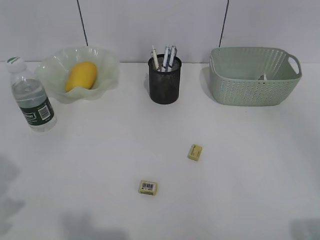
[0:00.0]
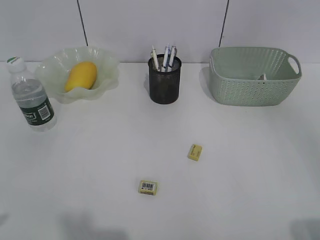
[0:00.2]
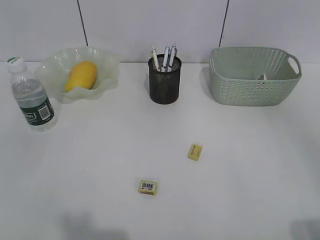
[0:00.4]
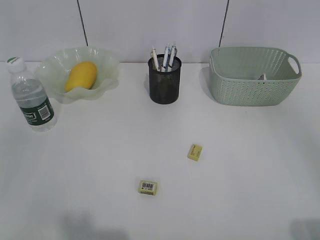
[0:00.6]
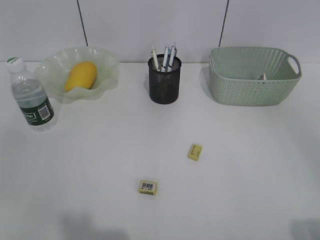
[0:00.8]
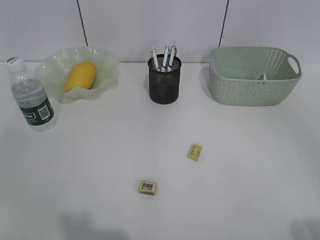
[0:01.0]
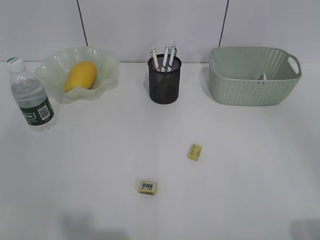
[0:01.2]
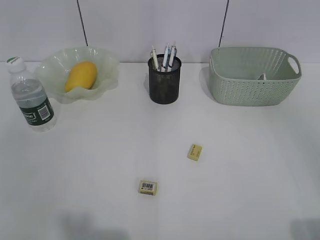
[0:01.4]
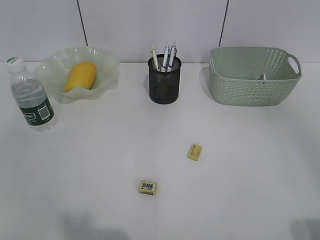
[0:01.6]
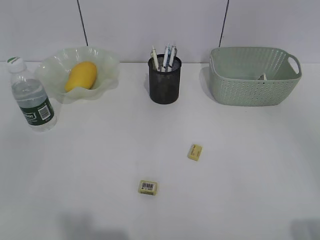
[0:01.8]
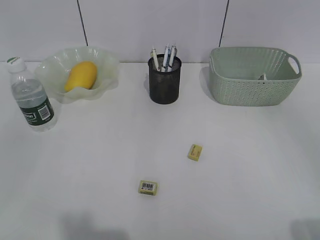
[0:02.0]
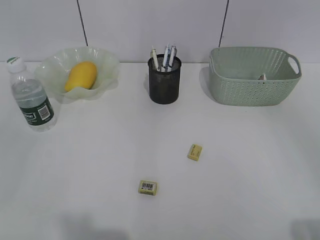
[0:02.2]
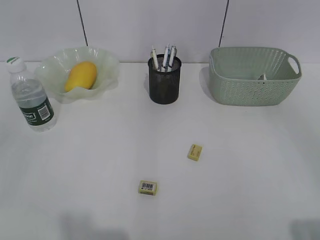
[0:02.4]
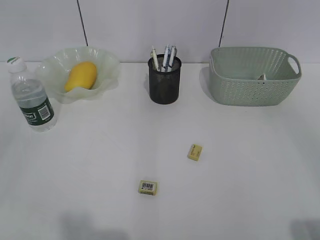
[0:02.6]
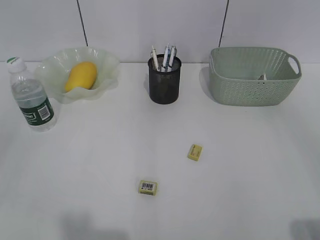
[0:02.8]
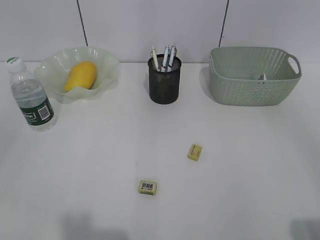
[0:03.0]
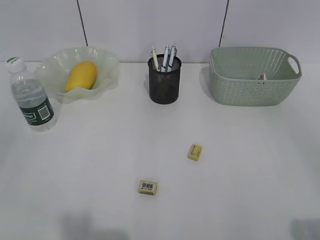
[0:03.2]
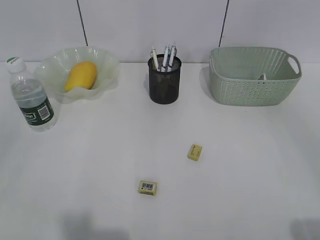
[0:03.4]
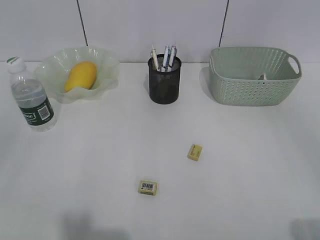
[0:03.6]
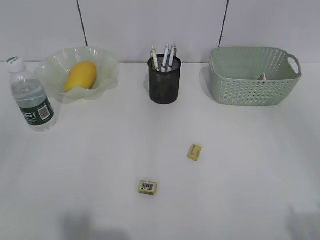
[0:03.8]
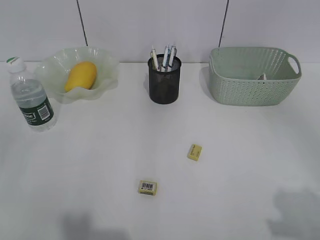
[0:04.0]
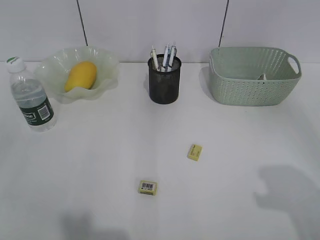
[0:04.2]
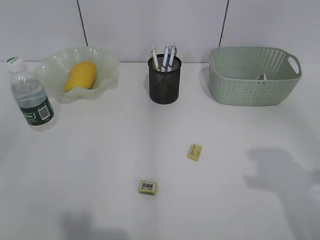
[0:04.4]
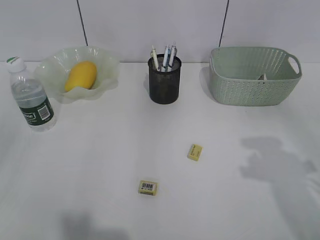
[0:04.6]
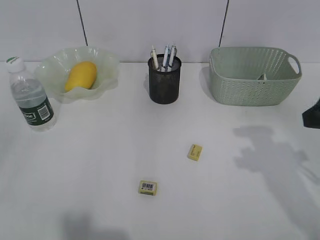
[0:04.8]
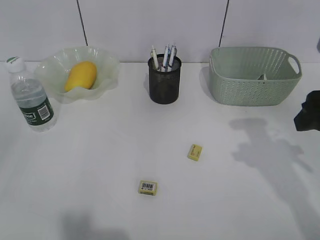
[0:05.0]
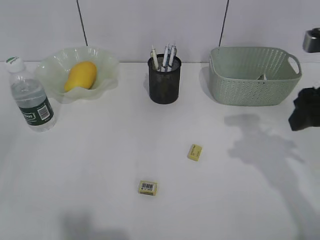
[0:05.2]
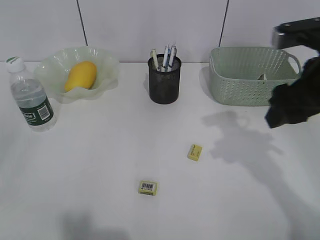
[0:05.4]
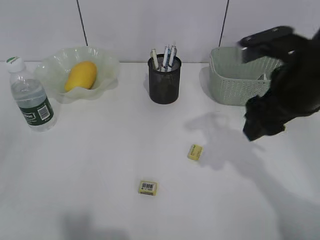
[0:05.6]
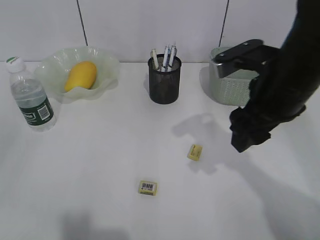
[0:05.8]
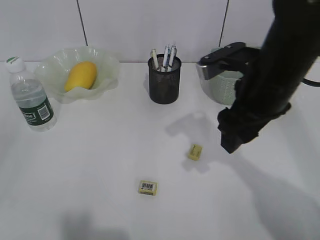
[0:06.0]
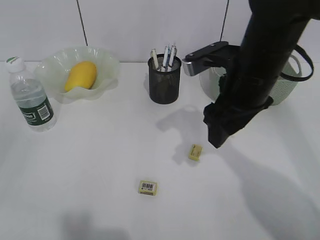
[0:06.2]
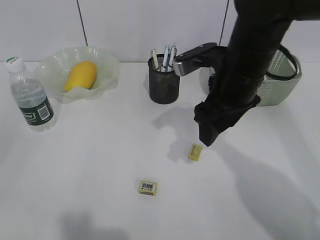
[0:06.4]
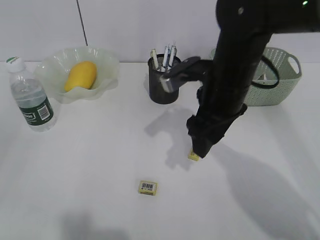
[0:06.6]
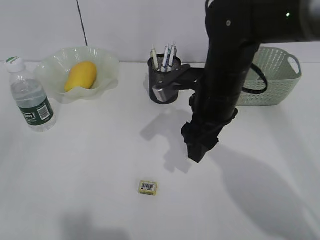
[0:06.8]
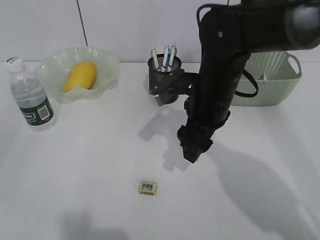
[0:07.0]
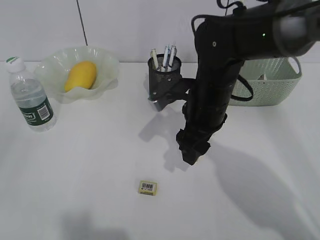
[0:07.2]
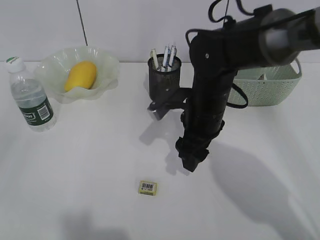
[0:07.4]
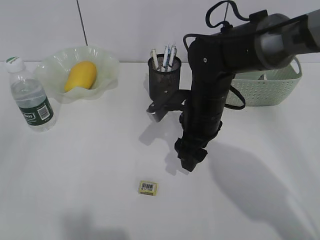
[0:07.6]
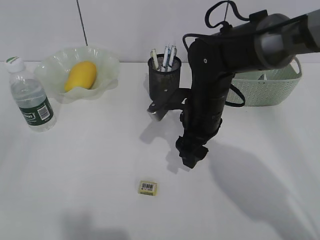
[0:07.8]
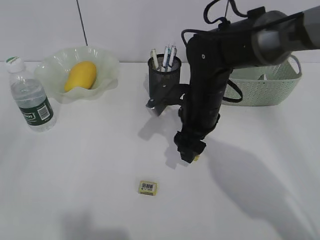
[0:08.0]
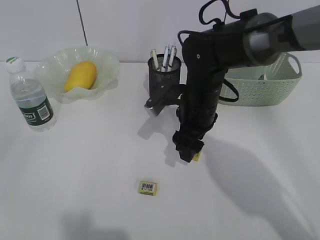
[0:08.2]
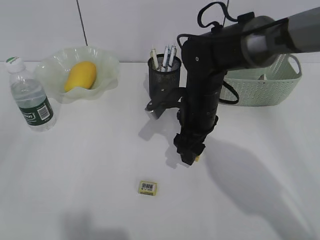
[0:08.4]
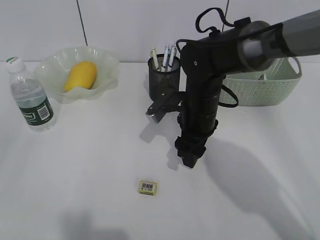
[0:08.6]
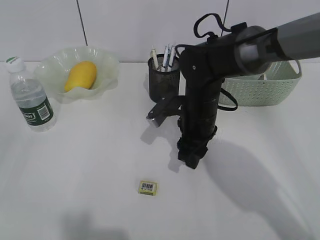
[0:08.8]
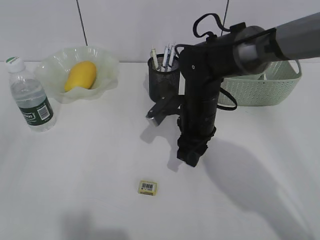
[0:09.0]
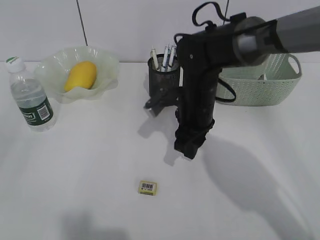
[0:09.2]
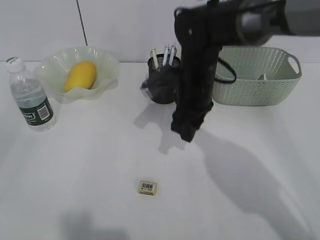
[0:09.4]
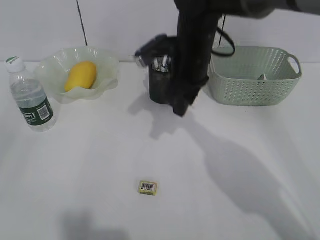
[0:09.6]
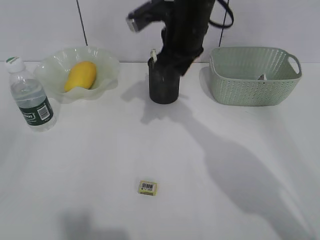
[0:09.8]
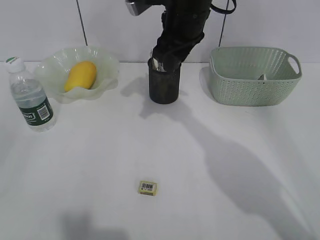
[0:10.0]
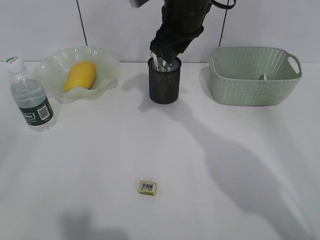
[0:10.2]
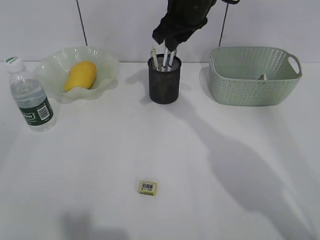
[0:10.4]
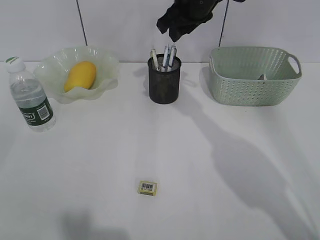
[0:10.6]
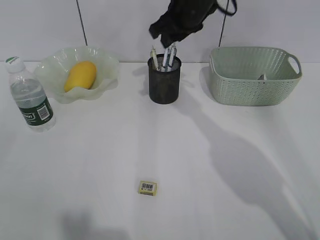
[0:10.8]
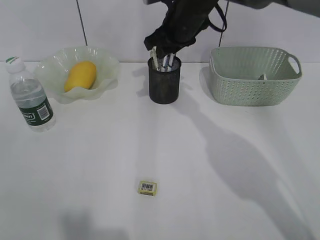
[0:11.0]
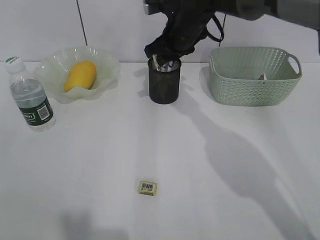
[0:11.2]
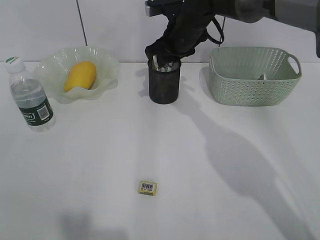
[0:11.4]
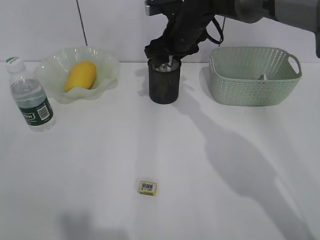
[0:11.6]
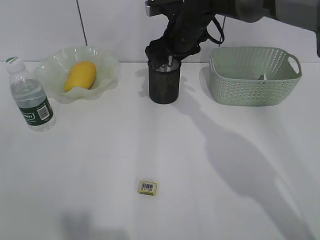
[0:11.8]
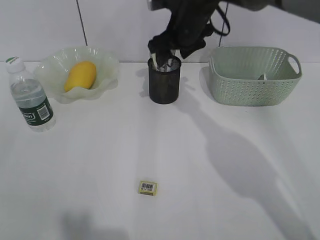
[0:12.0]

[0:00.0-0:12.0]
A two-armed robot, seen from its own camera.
Step, 0:00.0 to 0:08.8: Grasp the eraser with right gripper.
Step, 0:09.0 to 0:11.8: Place the eraser in pen holder with right gripper.
0:04.4 to 0:06.0: The right gripper shifts some 20 cm to the left and forward.
0:06.0 to 0:07.6: The right gripper heads downward and to the left, covering approximately 10 cm.
0:07.6 to 0:09.0: The right gripper closes up.
0:09.0 to 0:10.4: The right gripper goes approximately 20 cm upward and forward.
0:10.4 to 0:12.0: The right gripper moves downward, about 5 cm, and opens up.

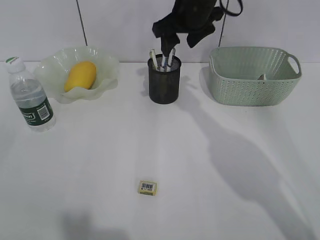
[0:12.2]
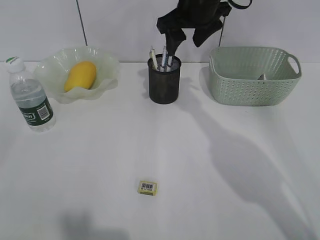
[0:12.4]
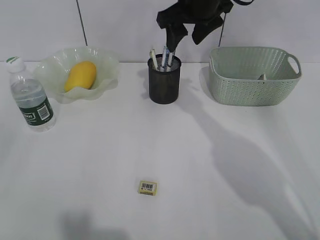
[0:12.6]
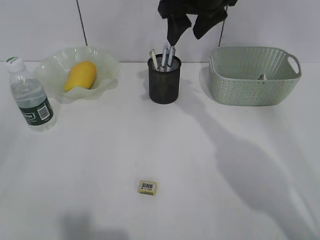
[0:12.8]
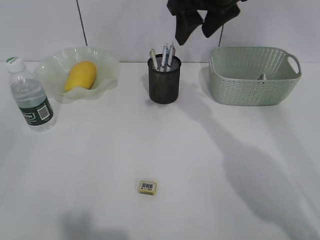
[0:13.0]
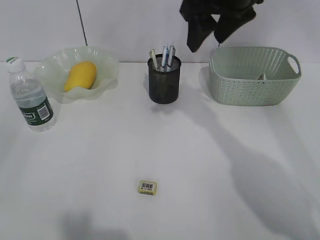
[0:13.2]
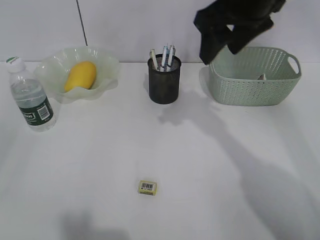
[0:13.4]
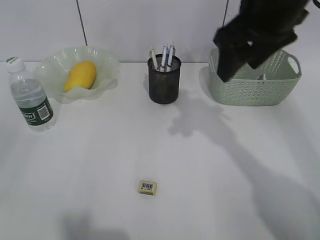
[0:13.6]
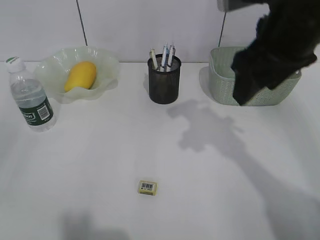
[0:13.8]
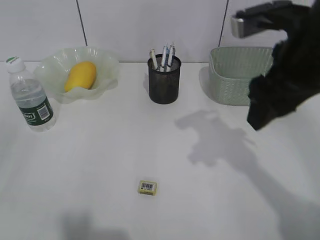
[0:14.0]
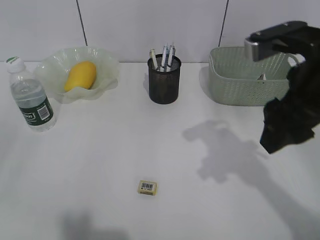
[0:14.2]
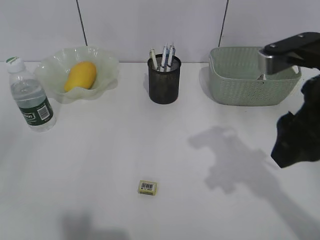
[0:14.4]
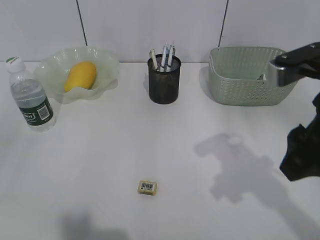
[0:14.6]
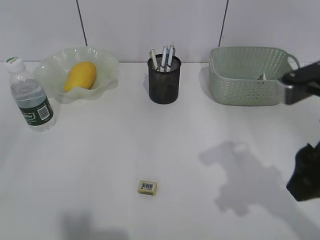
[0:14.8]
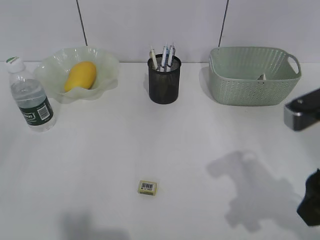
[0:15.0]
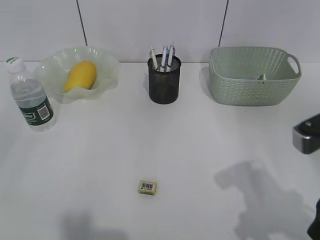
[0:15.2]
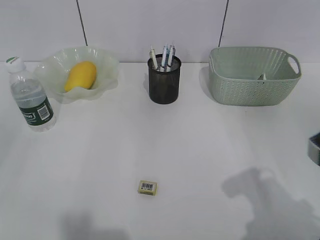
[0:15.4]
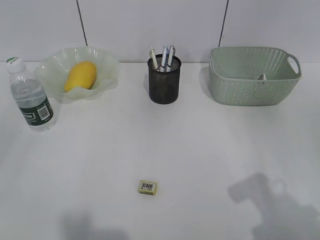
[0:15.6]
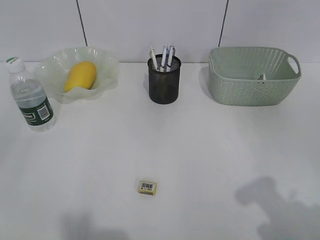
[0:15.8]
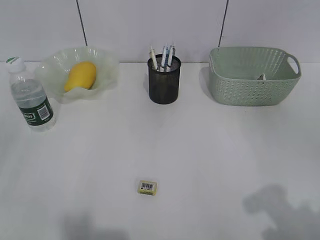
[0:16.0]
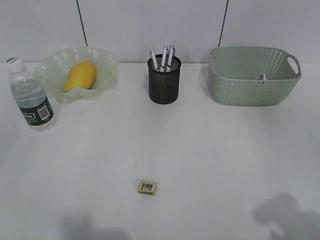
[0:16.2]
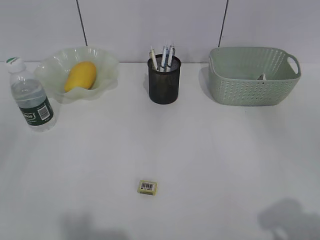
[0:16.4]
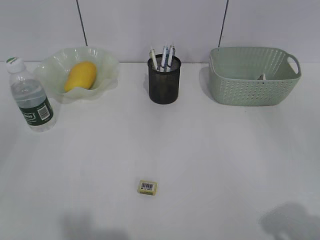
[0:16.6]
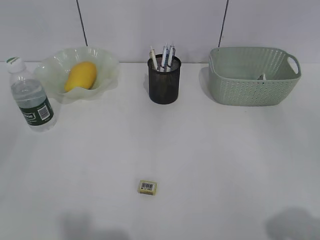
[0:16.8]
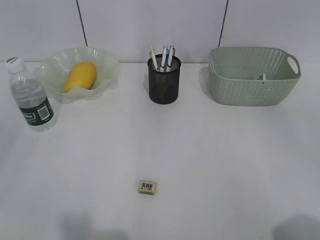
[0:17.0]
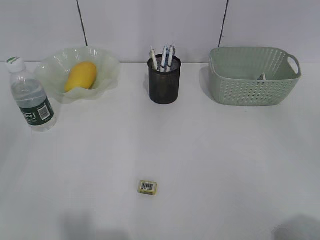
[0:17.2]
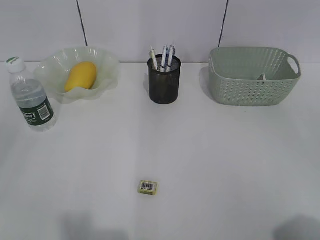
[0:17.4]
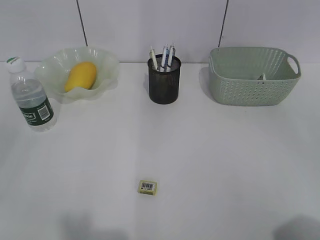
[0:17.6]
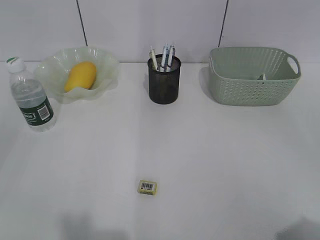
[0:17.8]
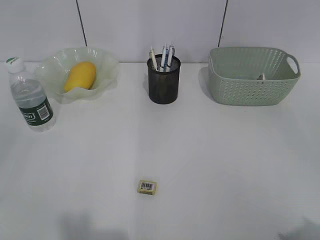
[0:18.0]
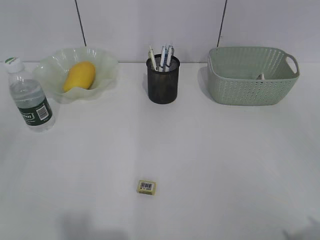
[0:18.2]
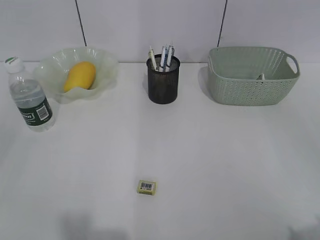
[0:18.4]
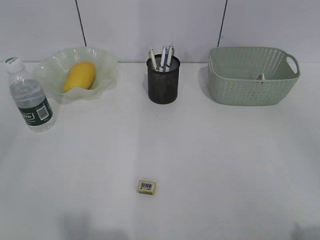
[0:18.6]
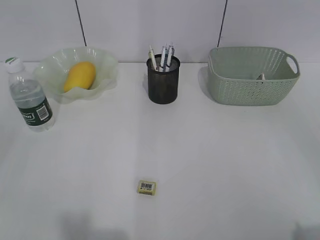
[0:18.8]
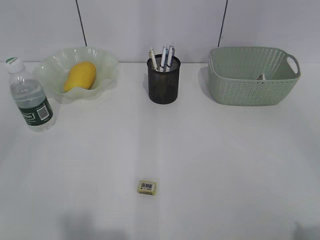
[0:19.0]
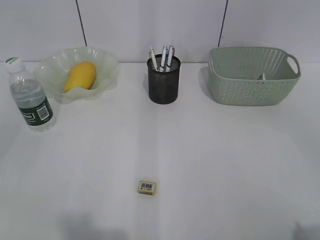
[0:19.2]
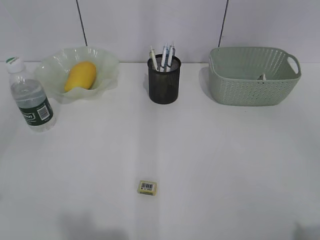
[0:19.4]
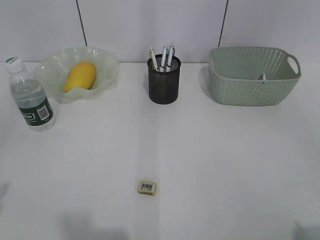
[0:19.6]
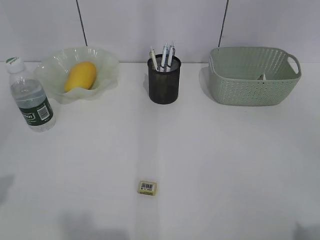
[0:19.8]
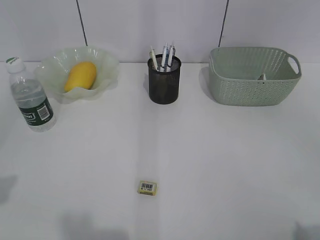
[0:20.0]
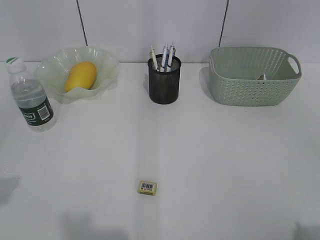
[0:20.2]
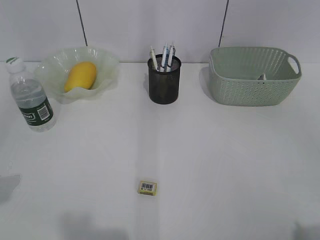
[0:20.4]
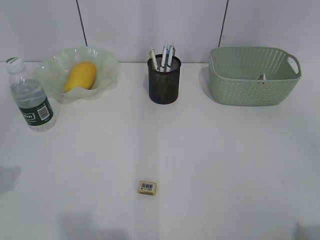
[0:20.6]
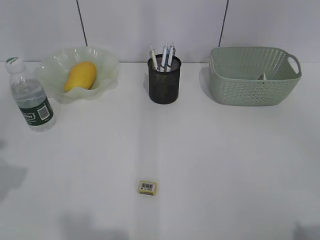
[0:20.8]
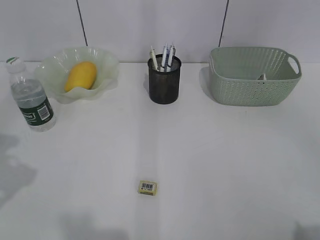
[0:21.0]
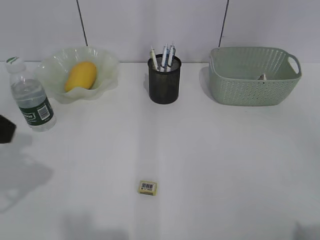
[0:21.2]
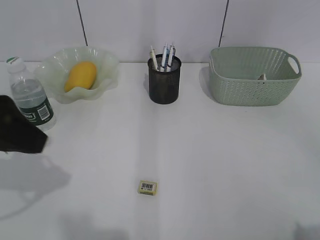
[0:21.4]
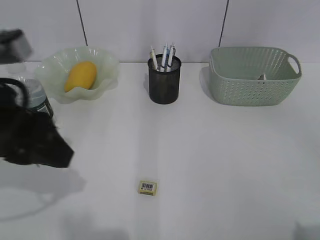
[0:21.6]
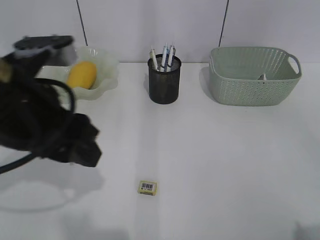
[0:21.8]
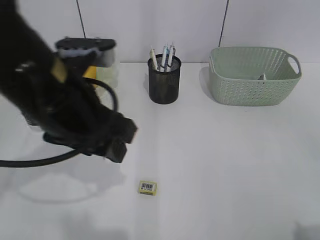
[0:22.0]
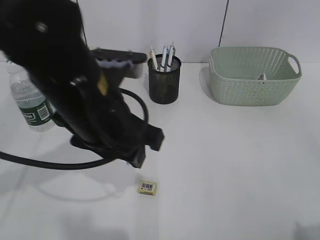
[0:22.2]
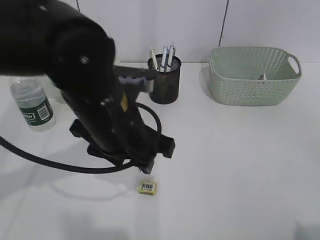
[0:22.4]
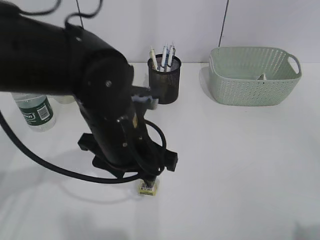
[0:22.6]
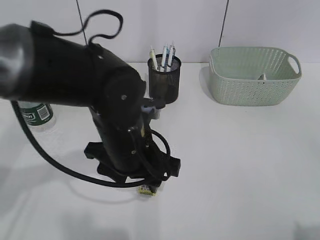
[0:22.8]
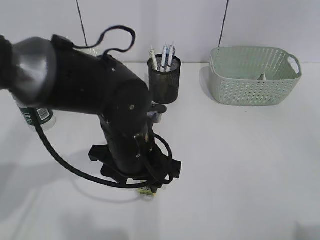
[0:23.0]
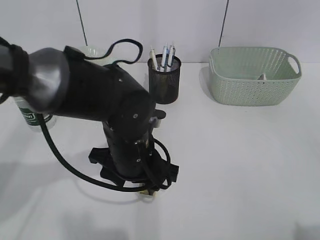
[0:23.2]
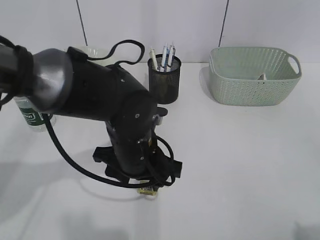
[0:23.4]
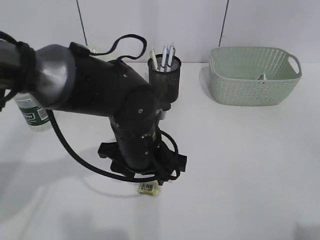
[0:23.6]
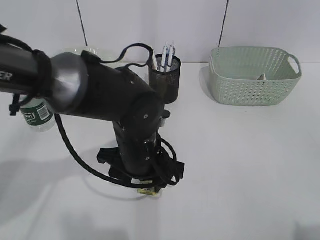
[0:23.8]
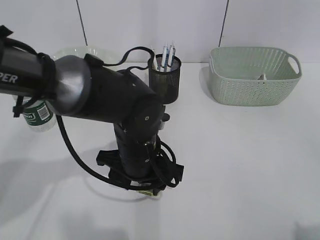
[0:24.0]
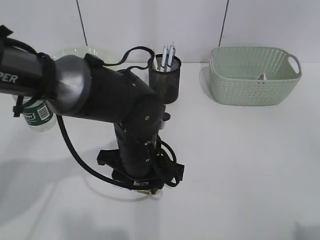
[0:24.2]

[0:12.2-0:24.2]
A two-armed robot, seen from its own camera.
0:12.2 to 0:13.8: The right gripper heads backward and to the right, covering approximately 20 cm.
0:13.8 to 0:15.2: The right gripper goes about 15 cm backward, downward and to the right.
0:15.2 to 0:16.6: The right gripper travels backward and to the right by about 15 cm.
0:16.6 to 0:18.2: The grippers make only small movements.
0:18.2 to 0:19.8: The left gripper moves forward and upward, about 10 cm, and opens its fingers.
0:19.8 to 0:21.2: The left gripper heads forward, covering some 10 cm.
0:21.2 to 0:22.6: The left gripper heads to the right and downward, covering roughly 25 cm.
0:22.6 to 0:24.2: The left gripper travels downward by about 5 cm.
